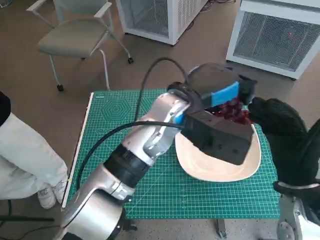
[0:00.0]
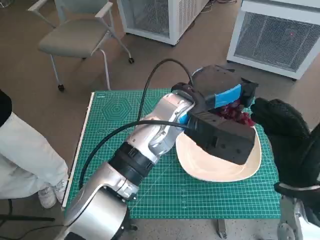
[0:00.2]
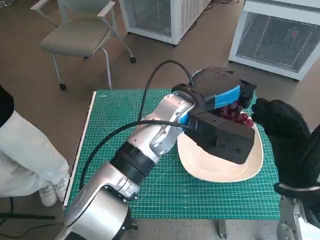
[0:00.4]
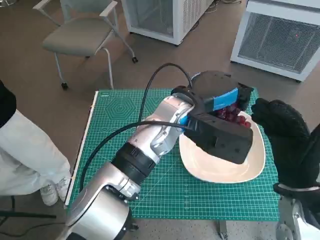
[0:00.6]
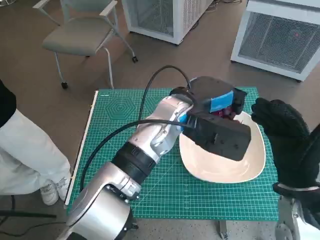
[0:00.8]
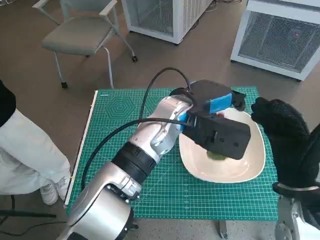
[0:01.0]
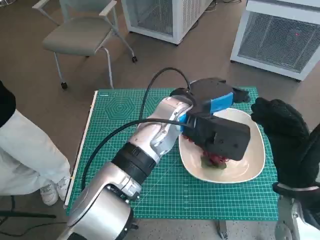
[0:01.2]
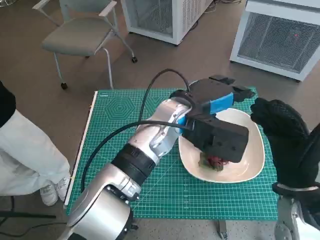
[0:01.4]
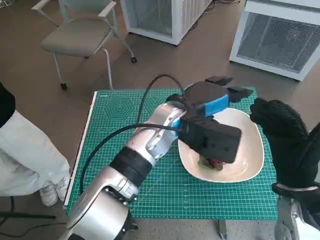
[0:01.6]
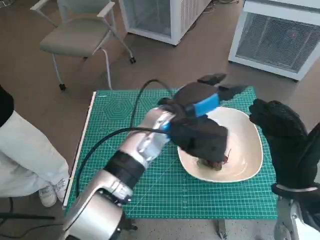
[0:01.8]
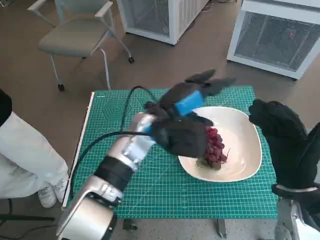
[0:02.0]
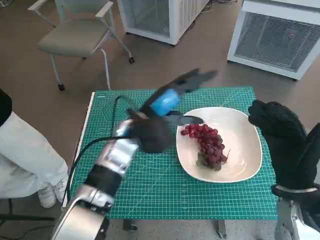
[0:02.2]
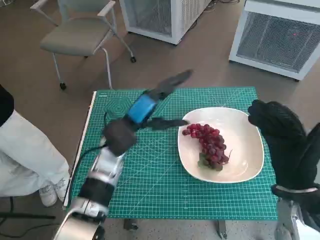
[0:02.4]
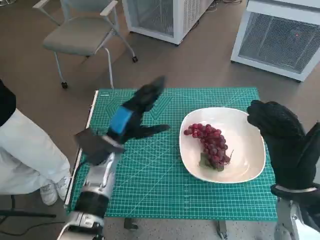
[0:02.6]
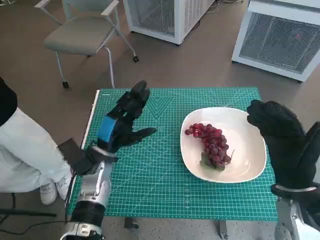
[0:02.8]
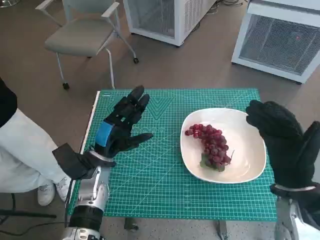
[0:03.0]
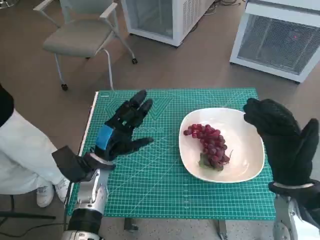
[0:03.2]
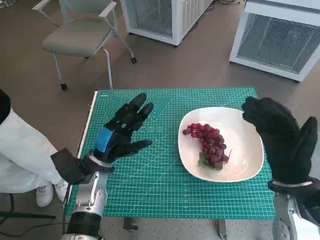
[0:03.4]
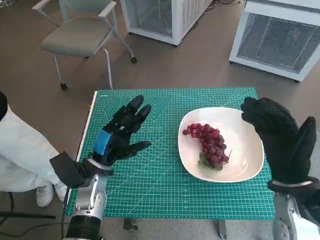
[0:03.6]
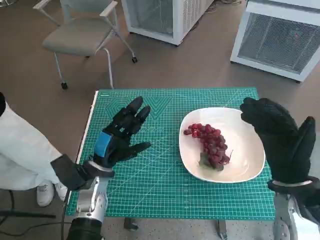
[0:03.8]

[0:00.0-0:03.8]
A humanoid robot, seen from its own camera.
Task of the whole recording: Pick up the grapes and put them on the plate.
0:01.2 to 0:02.6: The left hand heads to the left and downward, covering approximately 20 cm.
0:02.6 to 0:03.8: The left hand ends up approximately 5 cm from where it was.

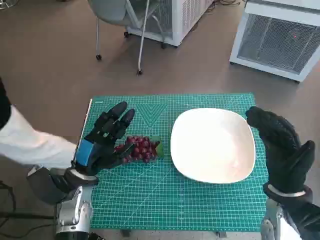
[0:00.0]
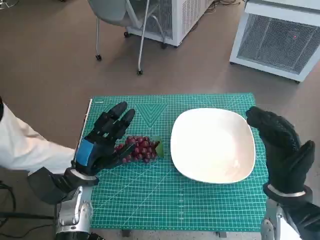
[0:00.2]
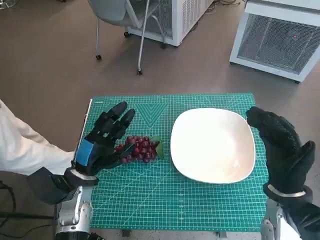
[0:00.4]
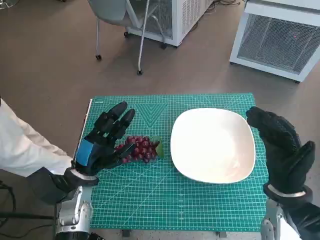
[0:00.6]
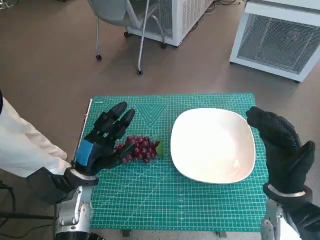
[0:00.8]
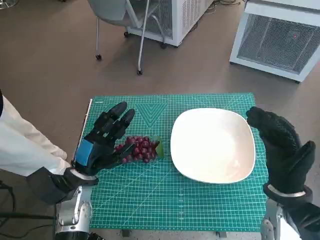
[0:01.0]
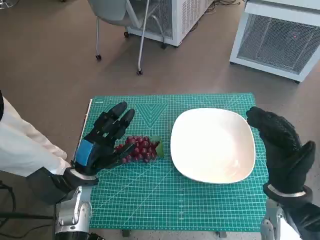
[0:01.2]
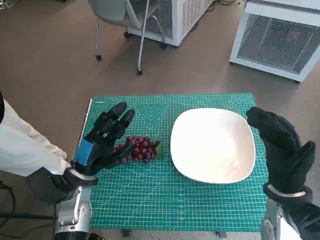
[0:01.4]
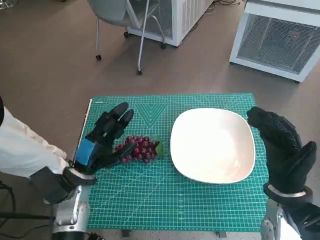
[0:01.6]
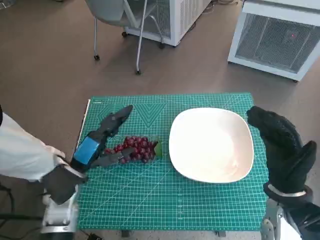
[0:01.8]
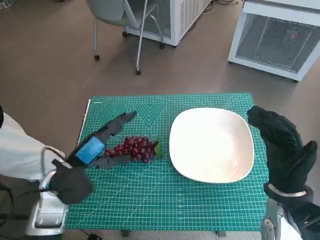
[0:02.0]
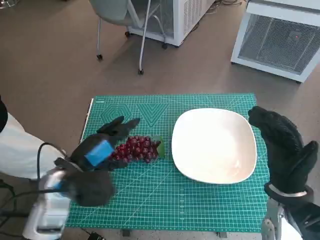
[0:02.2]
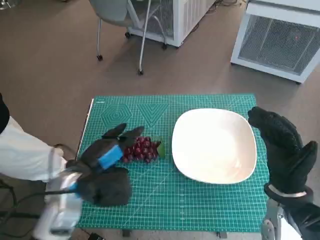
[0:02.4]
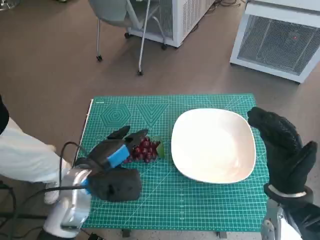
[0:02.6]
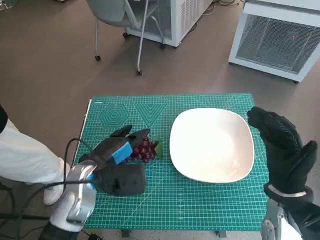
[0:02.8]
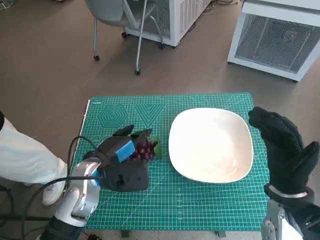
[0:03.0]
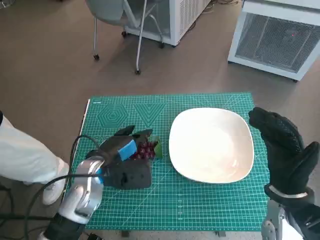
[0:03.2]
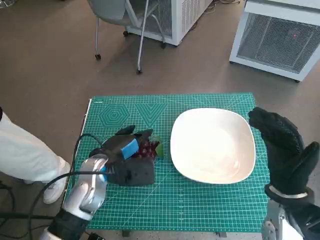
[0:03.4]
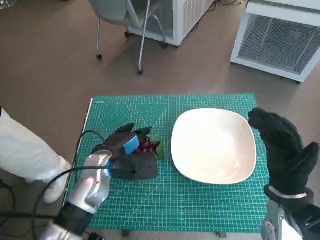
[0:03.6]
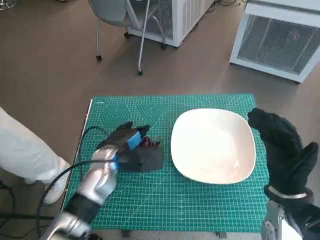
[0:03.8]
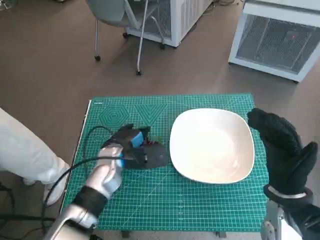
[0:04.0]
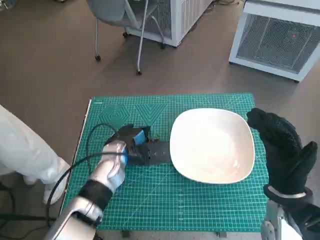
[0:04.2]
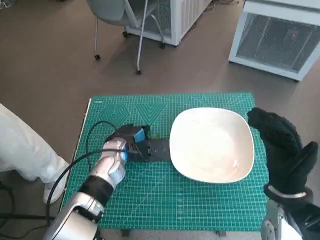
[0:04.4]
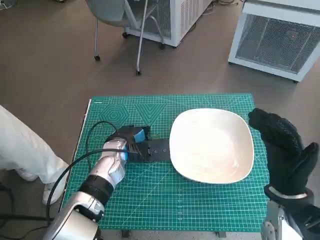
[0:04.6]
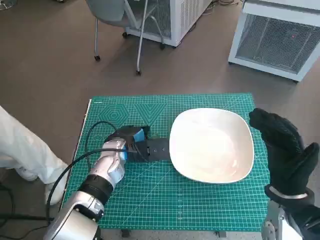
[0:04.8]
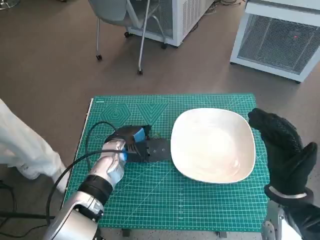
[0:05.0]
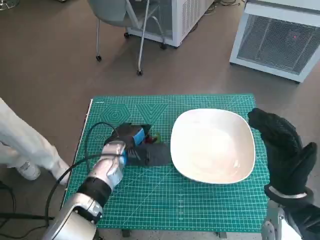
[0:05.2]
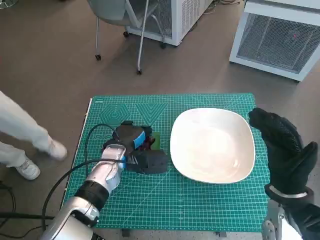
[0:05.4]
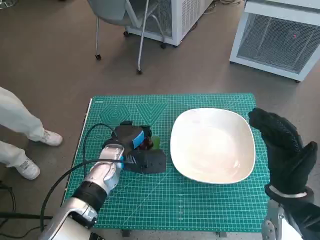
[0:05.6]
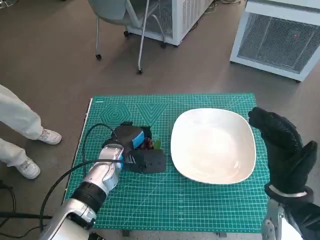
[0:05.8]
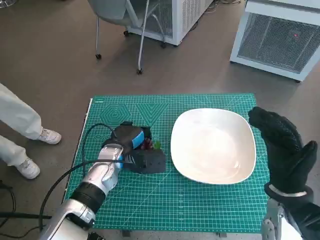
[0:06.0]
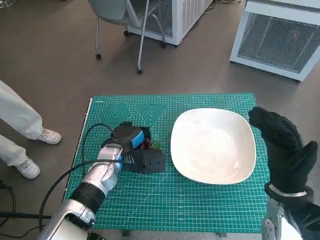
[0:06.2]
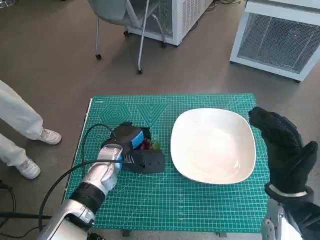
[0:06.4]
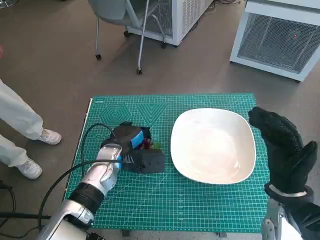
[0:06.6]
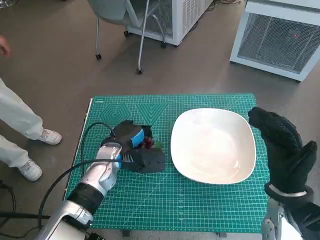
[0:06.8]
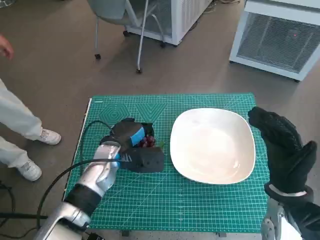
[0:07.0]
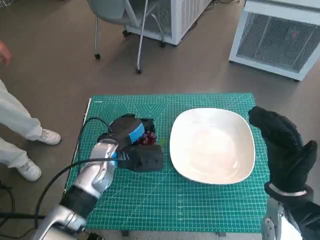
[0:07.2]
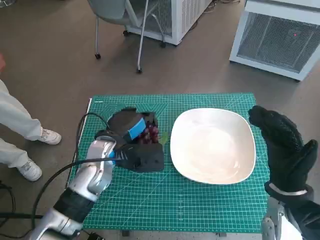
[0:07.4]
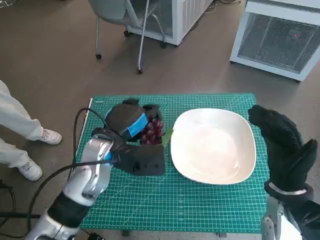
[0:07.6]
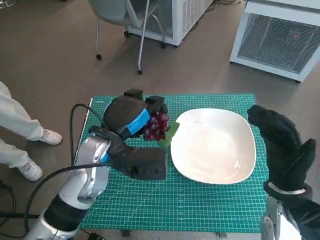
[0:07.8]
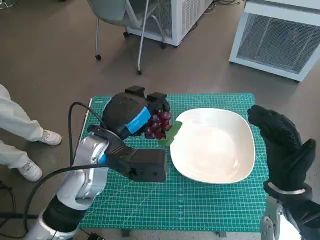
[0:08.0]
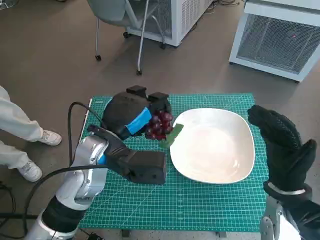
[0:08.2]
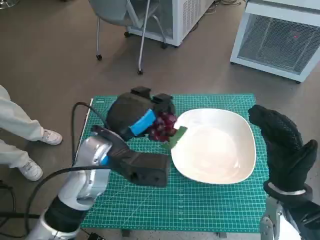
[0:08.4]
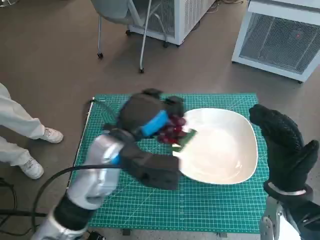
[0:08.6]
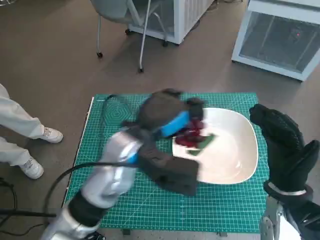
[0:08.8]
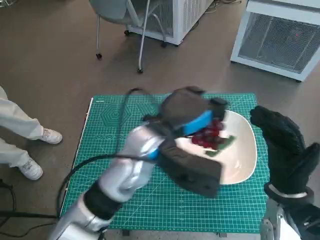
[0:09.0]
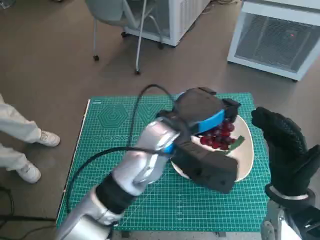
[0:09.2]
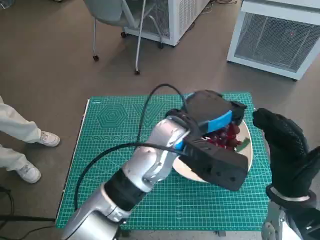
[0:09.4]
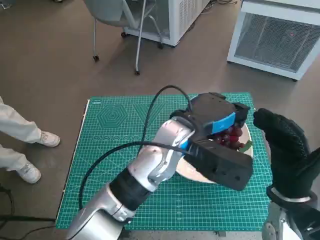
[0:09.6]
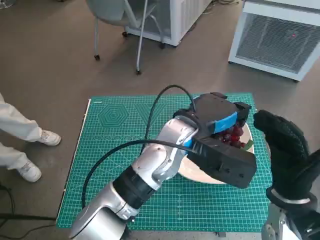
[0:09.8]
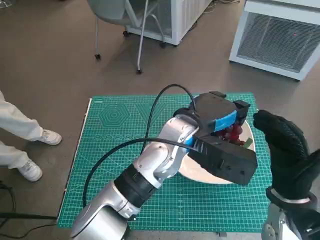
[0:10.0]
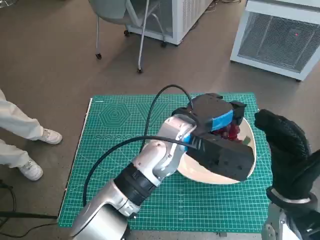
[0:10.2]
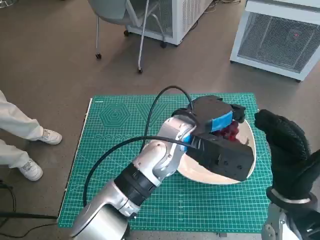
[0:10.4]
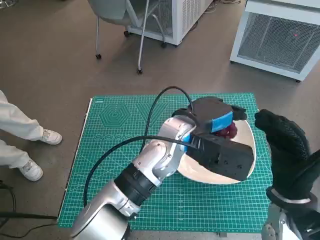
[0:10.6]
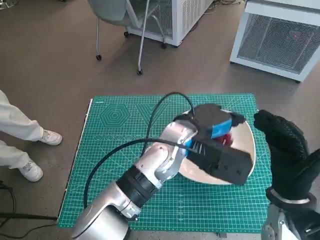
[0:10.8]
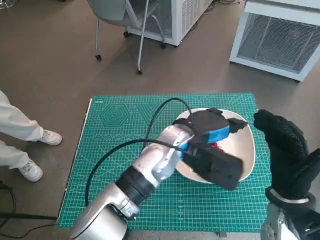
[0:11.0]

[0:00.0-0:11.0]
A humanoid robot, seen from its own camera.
Task of the whole recording: Pick up the grapes and put them on the plate.
Step, 0:00.0 to 0:05.4: Grasp the grapes with left hand.
0:01.6 to 0:03.2: The left hand ends up approximately 5 cm from where it was.
0:03.2 to 0:04.8: The left hand goes about 5 cm forward.
0:04.8 to 0:06.2: The hands make only small movements.
0:06.2 to 0:07.8: The left hand heads upward, covering about 10 cm.
0:07.8 to 0:09.4: The left hand moves to the right, some 10 cm.
0:09.4 to 0:11.0: There are only small adjustments of the hands.

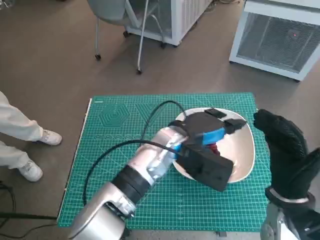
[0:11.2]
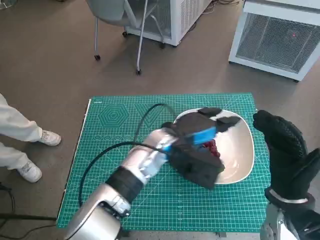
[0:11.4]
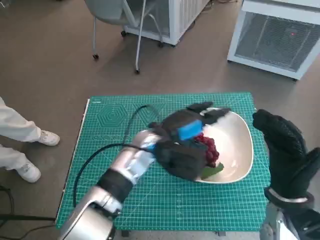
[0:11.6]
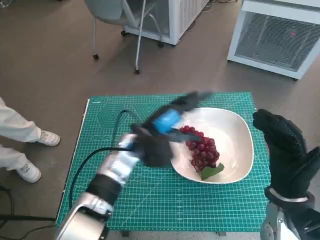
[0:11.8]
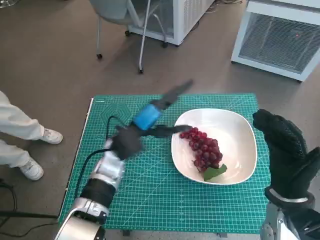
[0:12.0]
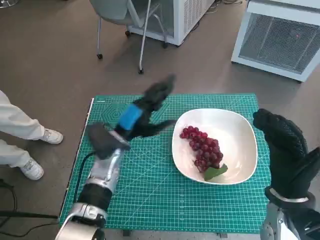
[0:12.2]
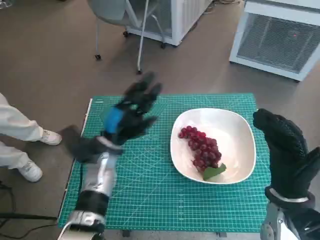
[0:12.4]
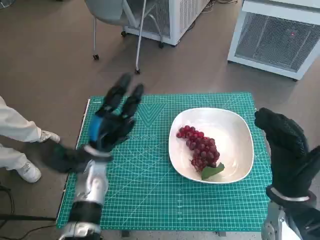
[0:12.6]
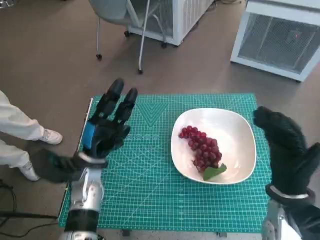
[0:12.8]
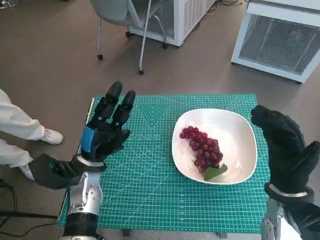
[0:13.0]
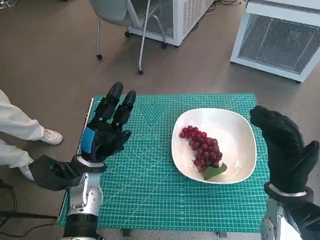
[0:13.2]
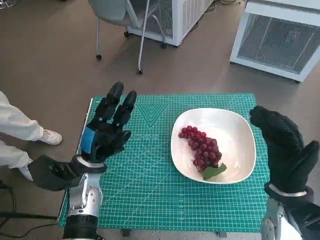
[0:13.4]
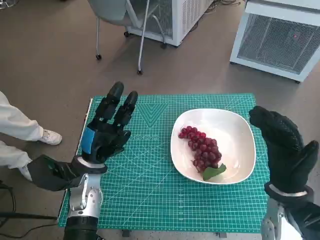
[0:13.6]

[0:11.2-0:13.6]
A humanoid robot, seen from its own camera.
Task of the whole recording: Pick up the grapes and put them on the plate.
0:11.2 to 0:12.4: The left hand moves to the left, approximately 15 cm.
0:12.4 to 0:13.6: The left hand moves roughly 5 cm.

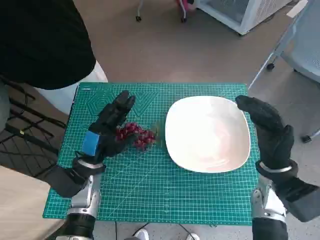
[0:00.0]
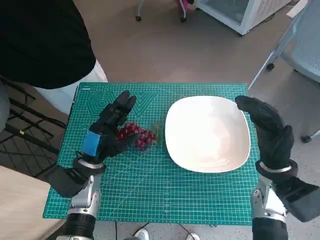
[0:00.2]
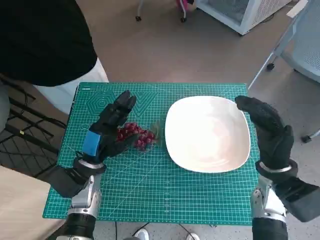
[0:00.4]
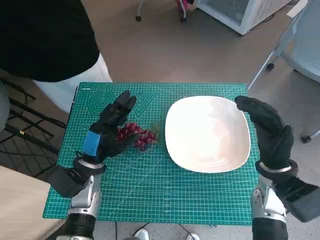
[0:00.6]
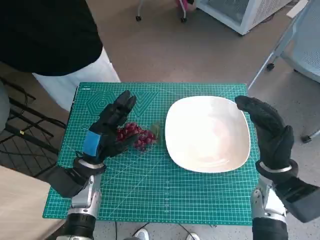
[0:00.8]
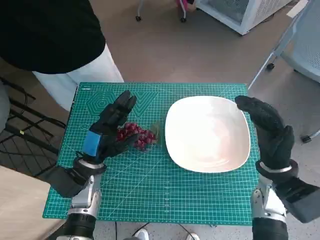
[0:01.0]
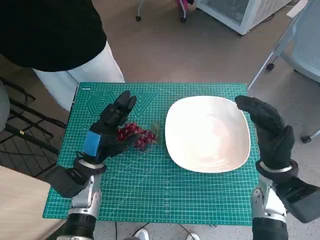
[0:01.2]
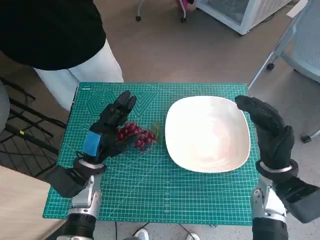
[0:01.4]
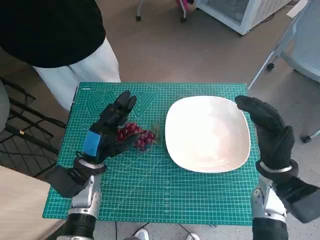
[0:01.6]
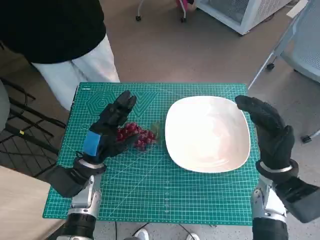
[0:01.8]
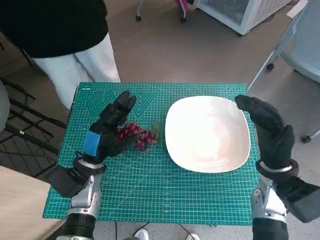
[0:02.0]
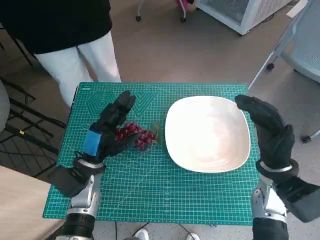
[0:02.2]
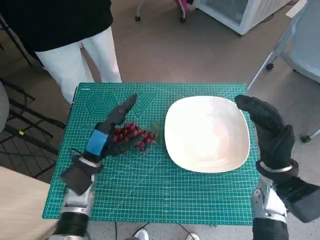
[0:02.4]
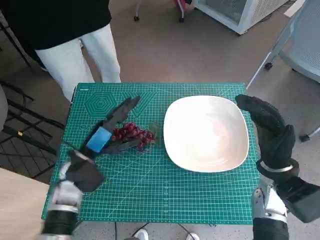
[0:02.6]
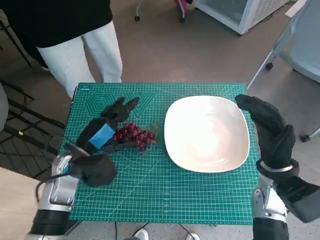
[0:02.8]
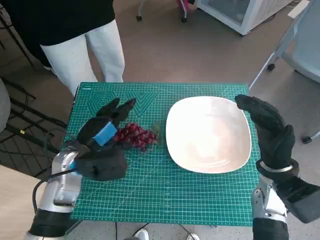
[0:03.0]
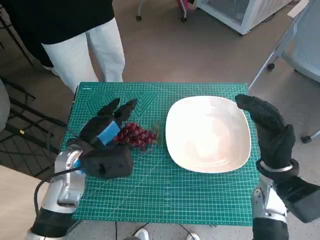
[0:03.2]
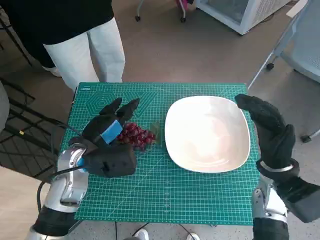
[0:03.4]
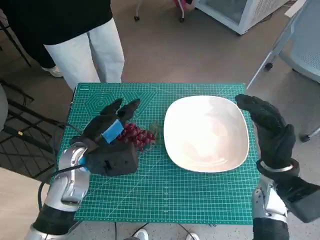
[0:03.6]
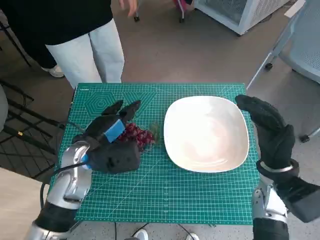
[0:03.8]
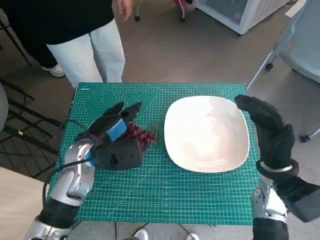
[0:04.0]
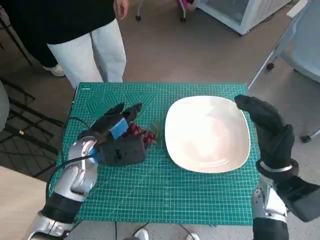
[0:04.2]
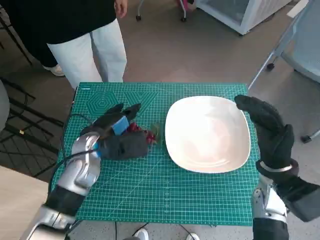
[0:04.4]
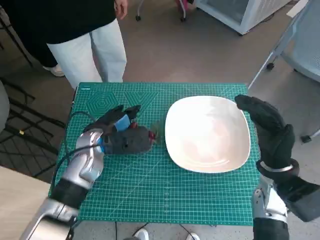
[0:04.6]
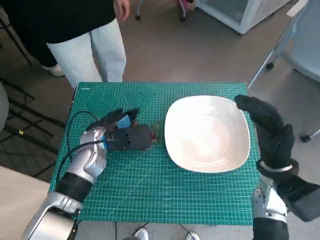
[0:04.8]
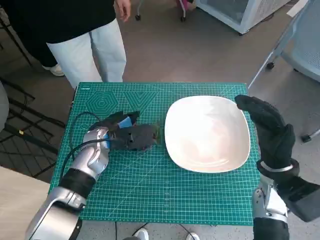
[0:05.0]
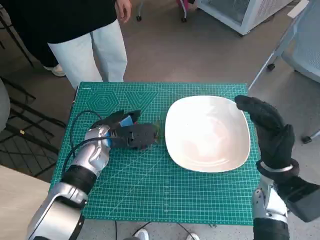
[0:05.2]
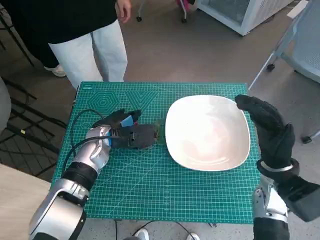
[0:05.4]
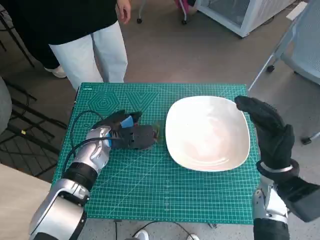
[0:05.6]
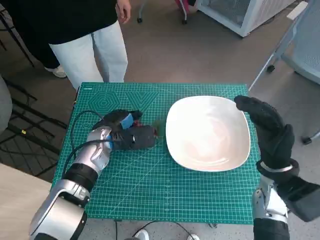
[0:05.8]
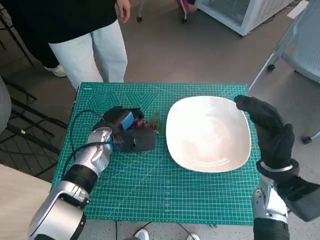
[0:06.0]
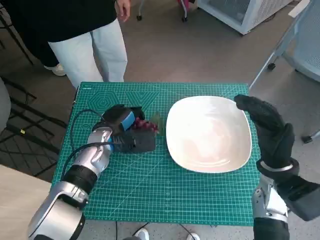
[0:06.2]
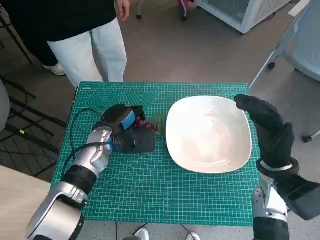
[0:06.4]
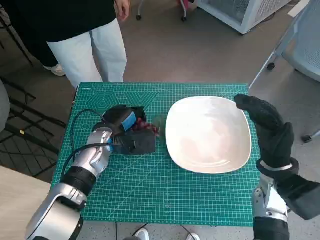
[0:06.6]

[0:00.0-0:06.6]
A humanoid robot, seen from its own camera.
Task of the whole recording: Pick up the grapes and put them on the plate.
0:01.6 to 0:03.2: The left hand shifts approximately 5 cm upward.
0:03.2 to 0:05.0: The left hand is displaced forward by roughly 5 cm.
0:05.0 to 0:06.6: The hands make only small movements.
